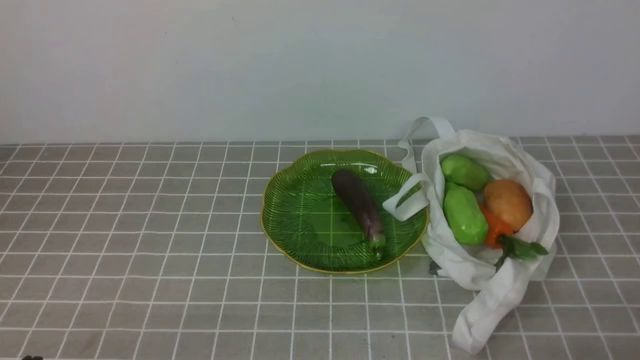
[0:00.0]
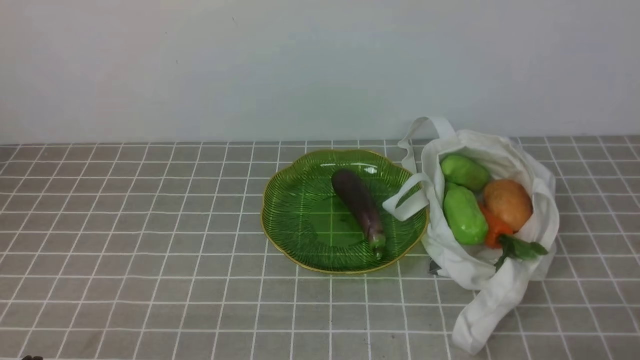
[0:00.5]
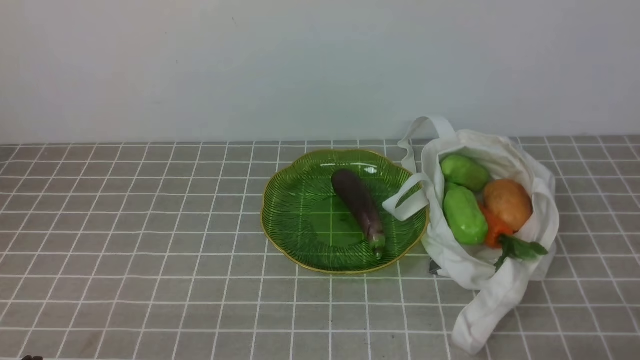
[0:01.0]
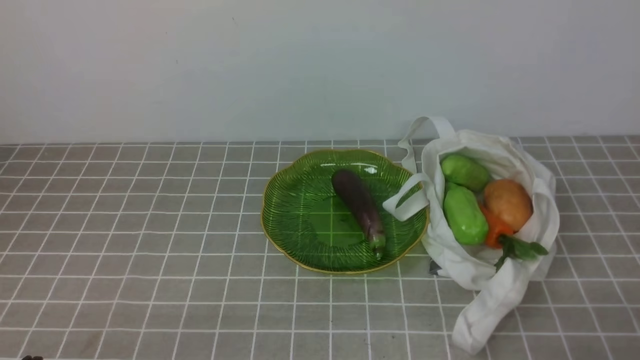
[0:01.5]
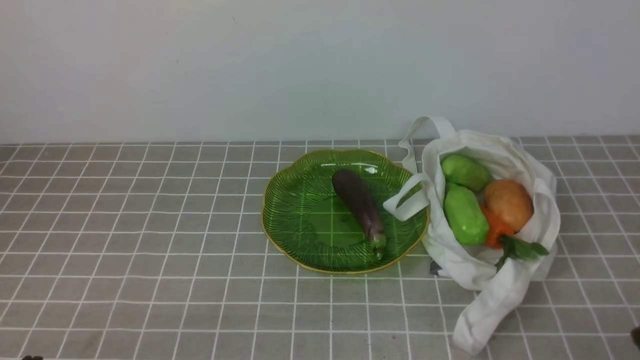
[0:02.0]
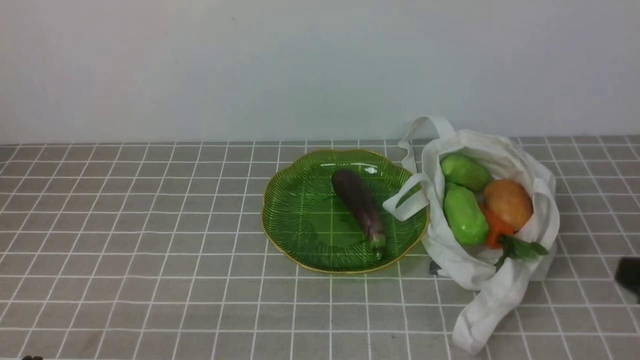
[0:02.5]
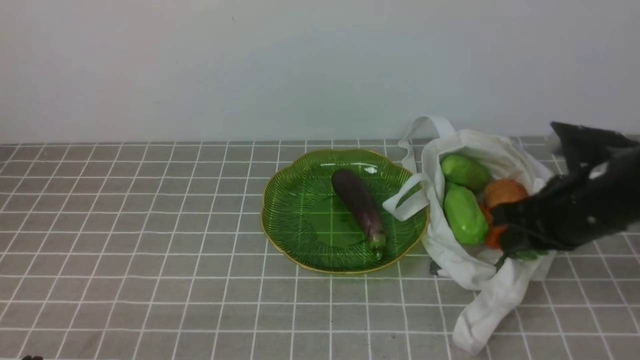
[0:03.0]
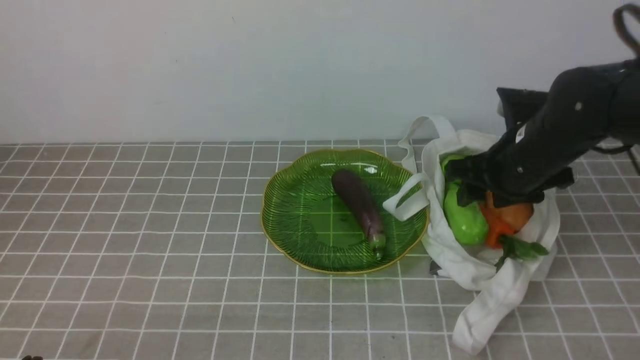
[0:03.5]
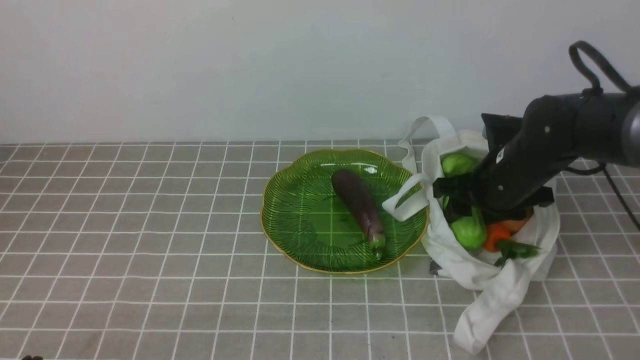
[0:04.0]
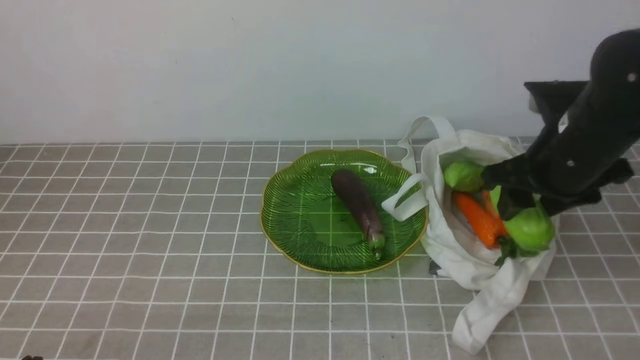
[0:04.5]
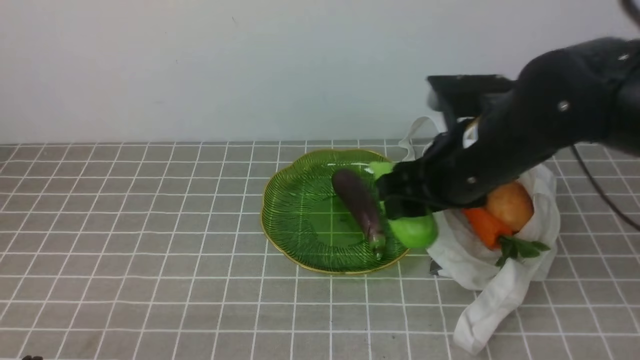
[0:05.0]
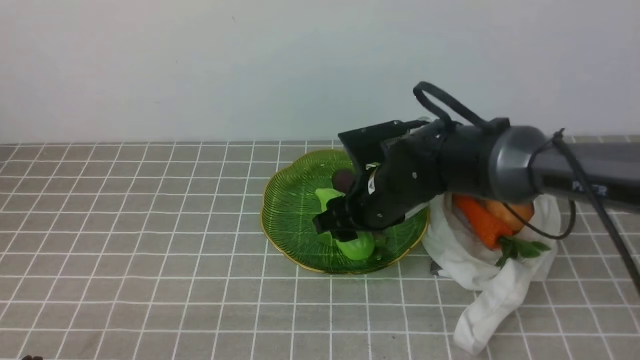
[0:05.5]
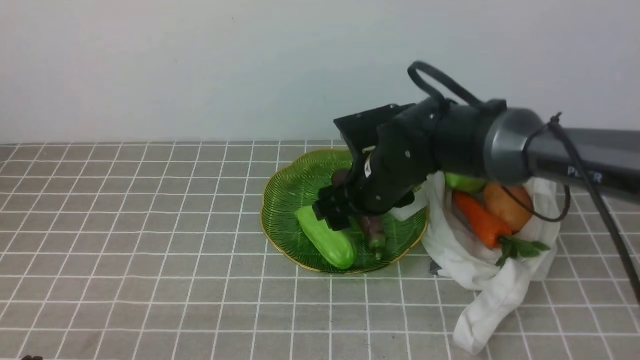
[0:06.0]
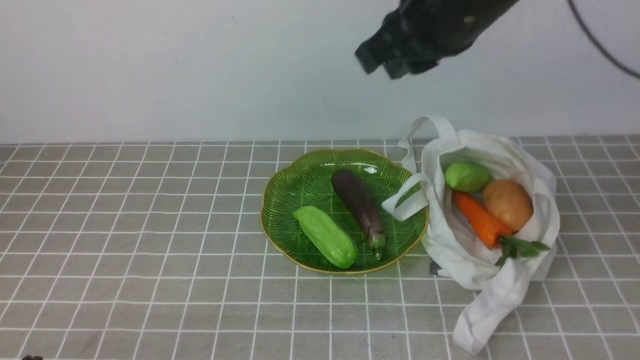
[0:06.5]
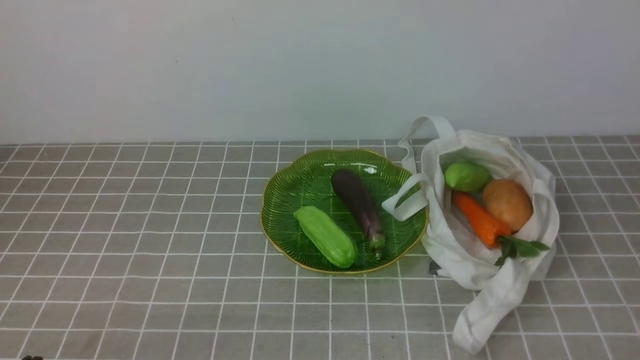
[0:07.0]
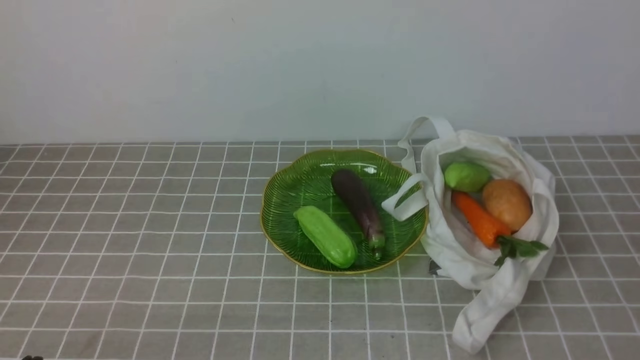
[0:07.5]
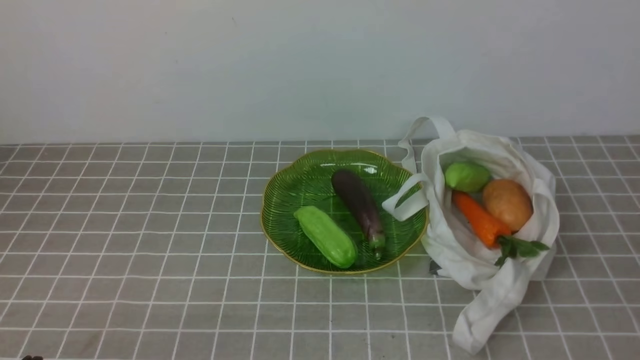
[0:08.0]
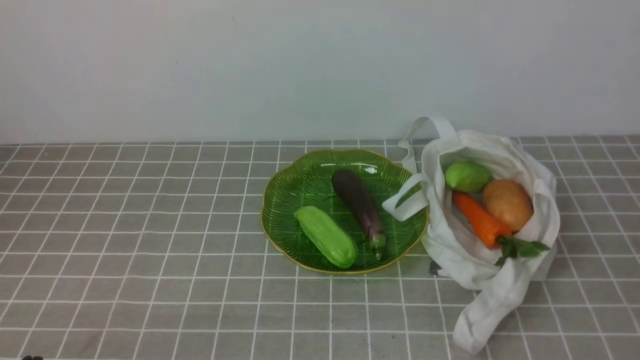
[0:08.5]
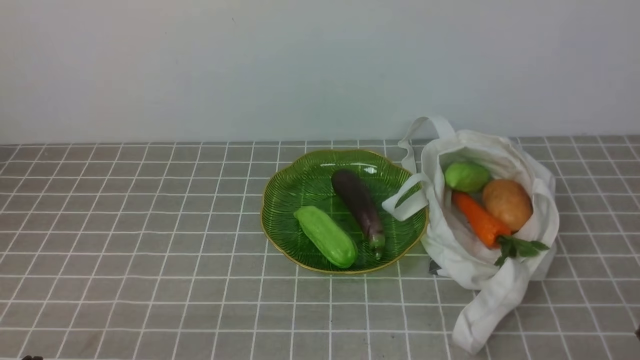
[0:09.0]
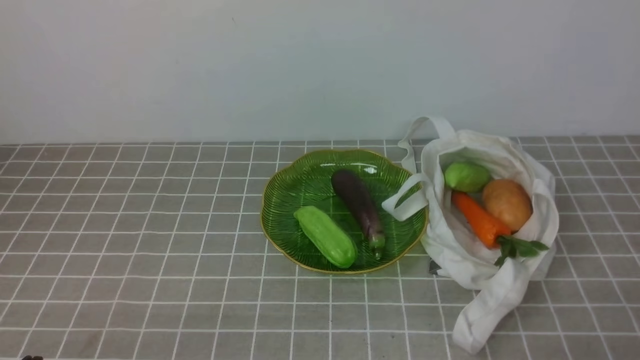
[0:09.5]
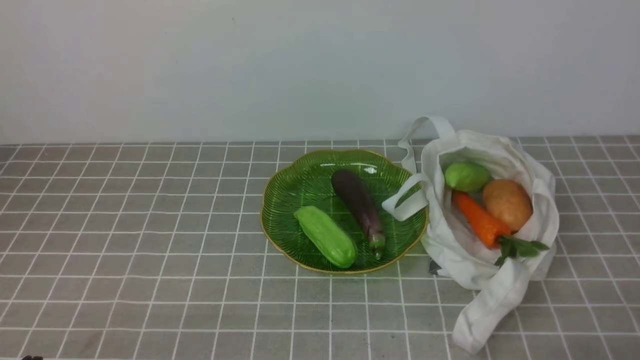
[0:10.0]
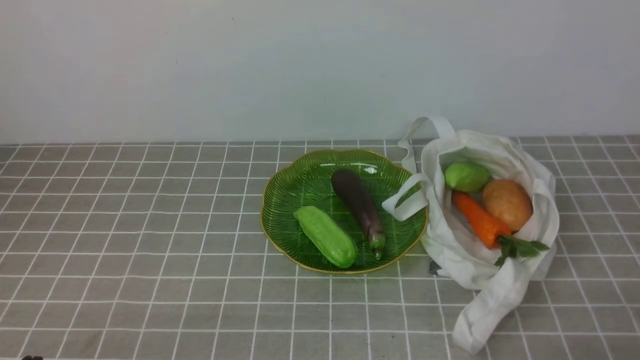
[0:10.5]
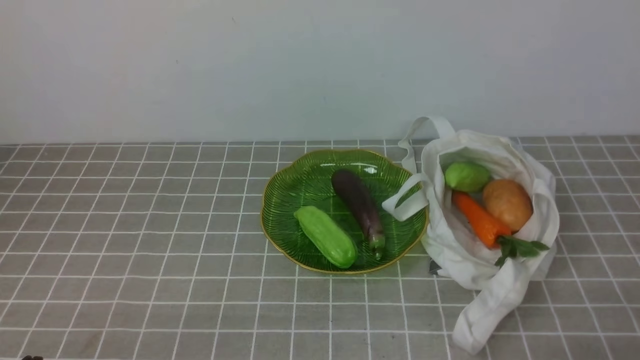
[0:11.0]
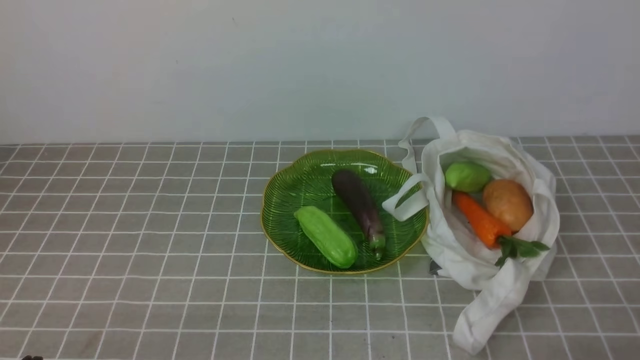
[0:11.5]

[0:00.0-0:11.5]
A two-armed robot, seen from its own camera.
Task of the whole recording: take vegetables from bag on grey coffee tablecloth place on plate.
Step, 0:00.0 to 0:04.0: Grasp the bitter melon with right gripper.
Step, 0:04.5 to 0:06.0: Place the bitter melon on the plate with right gripper.
0:02.0 to 0:04.0: The right gripper goes about 30 cm forward, and opens its fingers.
0:04.0 to 0:06.0: The right gripper travels to the left by approximately 15 cm.
0:06.0 to 0:07.5: The right gripper shifts approximately 40 cm backward and to the right, and closes its fingers.
0:09.5 to 0:11.5: Both grippers stay about where they are.
